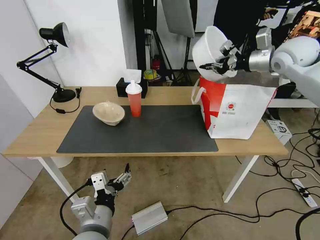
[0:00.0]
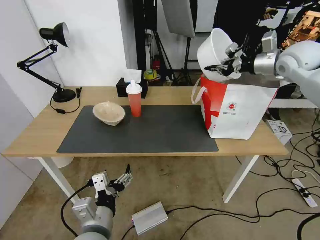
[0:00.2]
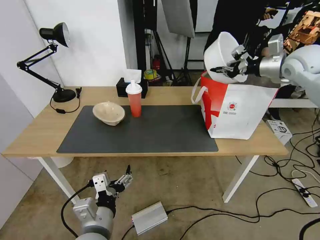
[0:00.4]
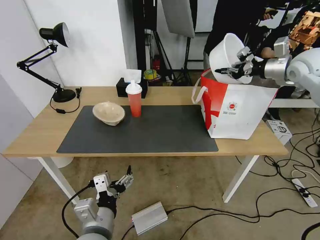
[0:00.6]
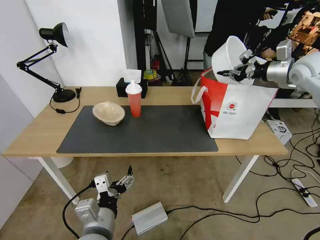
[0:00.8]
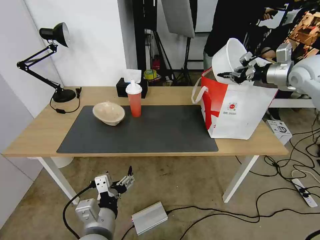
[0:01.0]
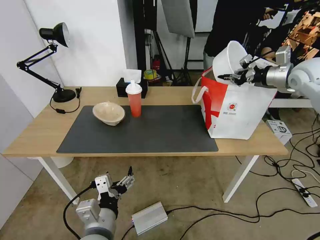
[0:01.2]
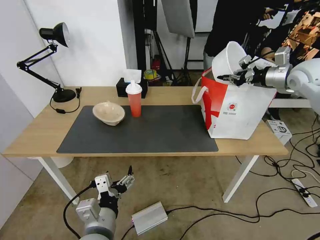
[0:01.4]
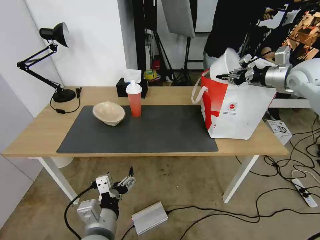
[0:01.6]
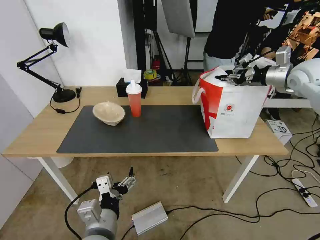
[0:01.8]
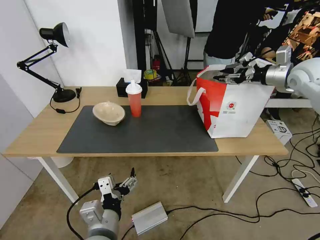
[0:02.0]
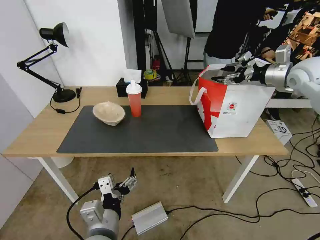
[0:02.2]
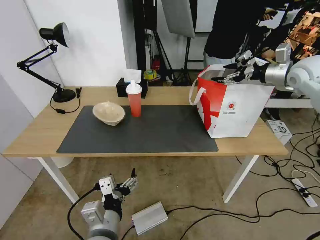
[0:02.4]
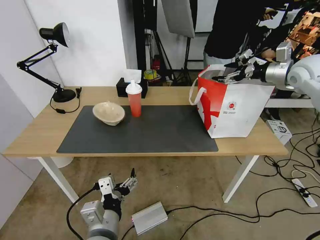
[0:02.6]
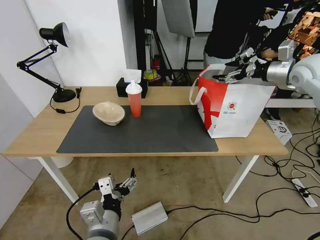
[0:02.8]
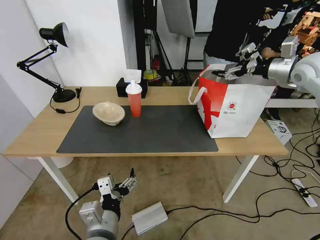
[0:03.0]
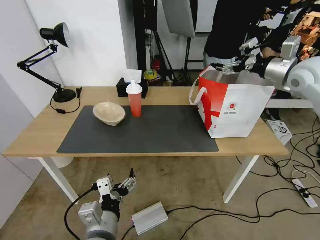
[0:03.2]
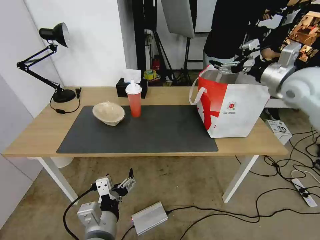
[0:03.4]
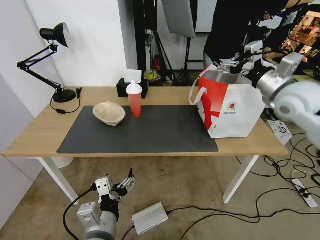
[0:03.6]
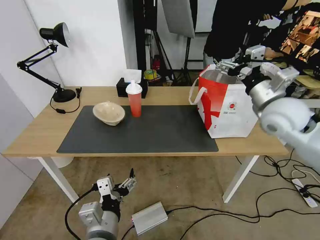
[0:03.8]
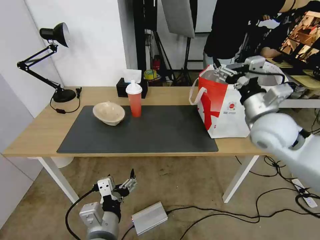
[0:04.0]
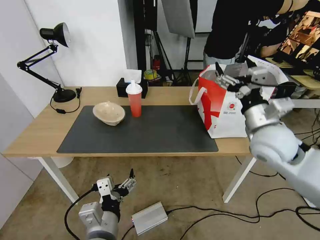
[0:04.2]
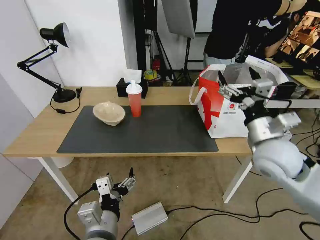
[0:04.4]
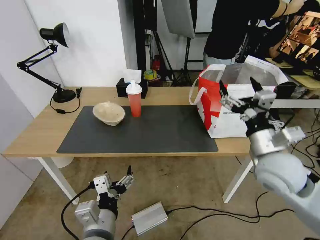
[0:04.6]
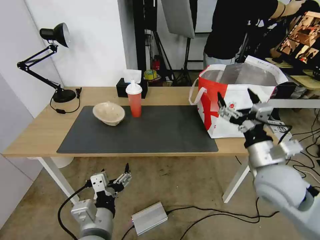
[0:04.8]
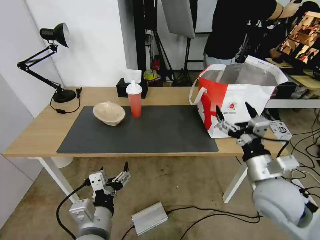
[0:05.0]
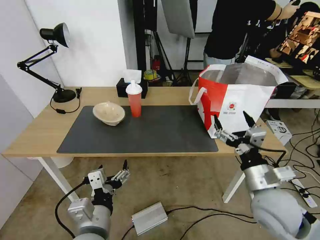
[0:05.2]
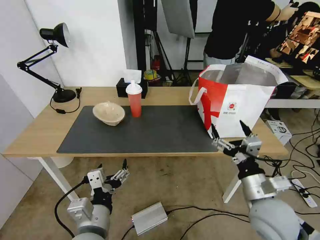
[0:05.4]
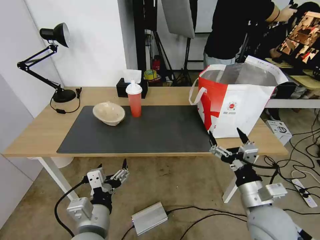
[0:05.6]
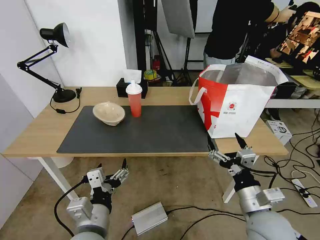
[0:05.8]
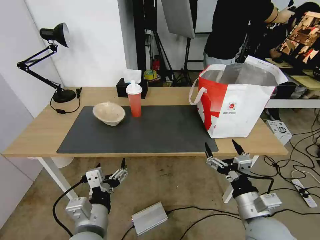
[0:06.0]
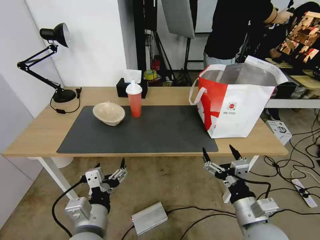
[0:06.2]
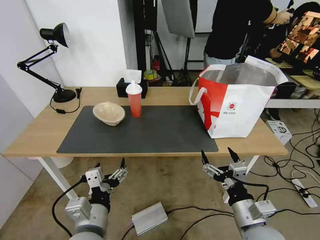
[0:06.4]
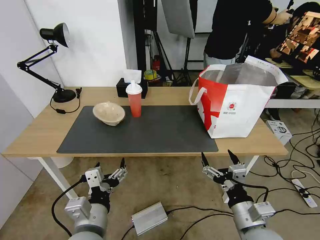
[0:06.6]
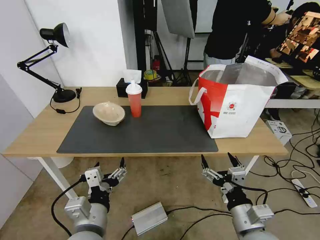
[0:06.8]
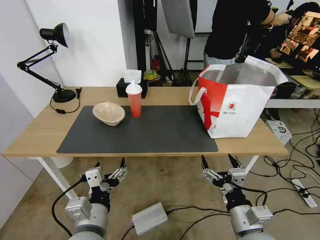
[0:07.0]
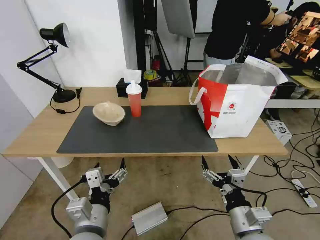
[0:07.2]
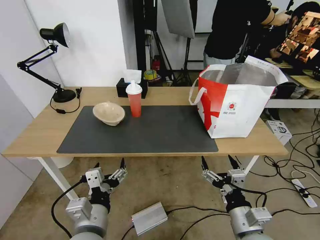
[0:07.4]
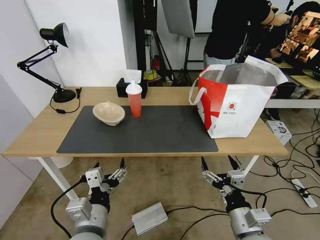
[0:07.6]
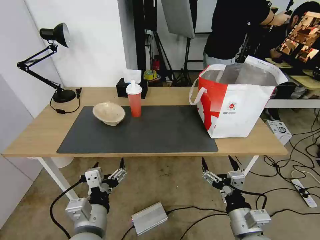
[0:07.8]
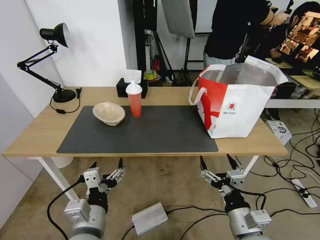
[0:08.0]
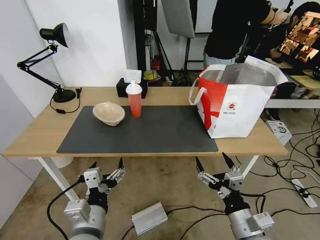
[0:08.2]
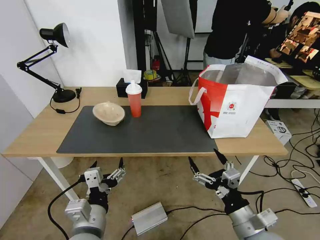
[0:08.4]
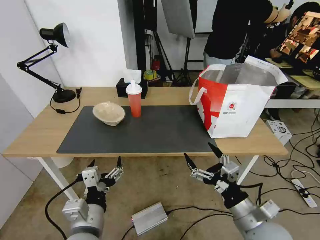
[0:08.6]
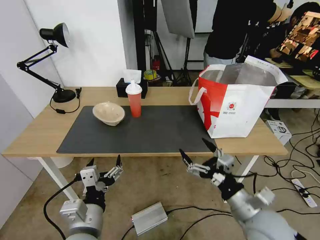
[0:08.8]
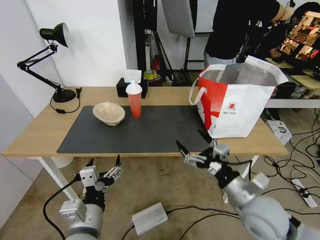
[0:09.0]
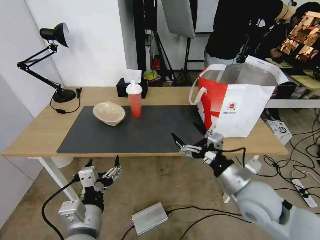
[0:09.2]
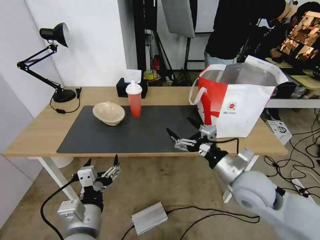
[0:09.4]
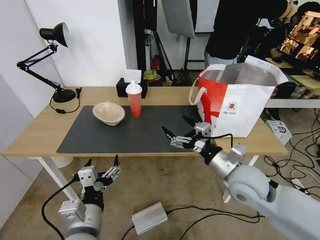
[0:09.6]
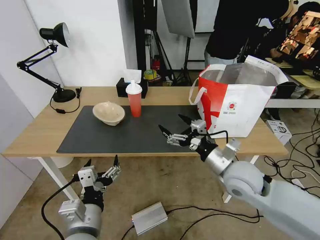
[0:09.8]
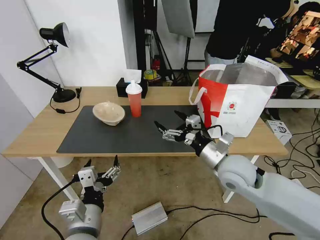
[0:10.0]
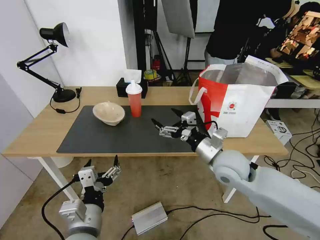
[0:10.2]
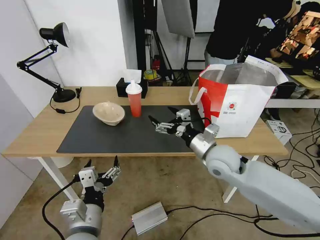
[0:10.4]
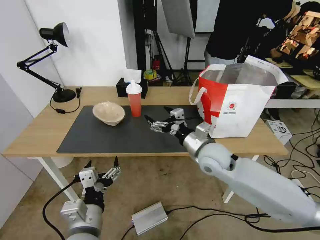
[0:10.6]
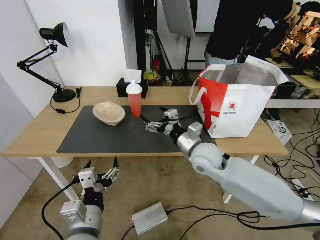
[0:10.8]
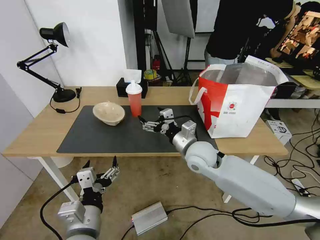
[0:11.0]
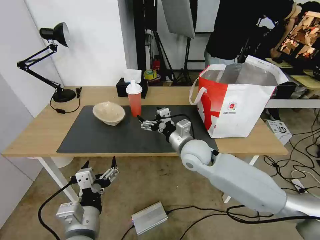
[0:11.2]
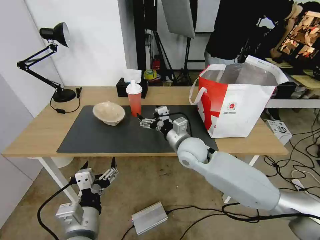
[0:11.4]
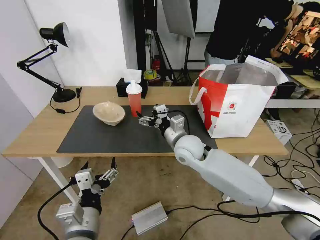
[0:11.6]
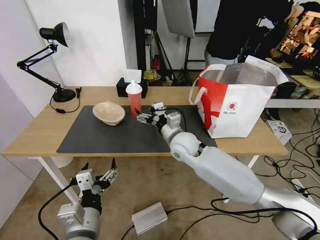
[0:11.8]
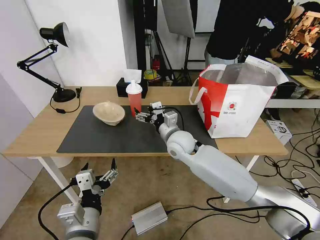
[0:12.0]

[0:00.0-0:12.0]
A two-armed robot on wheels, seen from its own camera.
Task of the whole recording: Pick up the trash from the table and place it into the takeout bag.
0:00.0 to 0:01.6: The right gripper travels to the right by some 5 cm.
0:01.6 to 0:03.0: The right gripper opens.
0:03.0 to 0:04.4: The right gripper shifts about 30 cm backward, to the left and downward.
0:04.4 to 0:06.0: The right gripper travels backward and downward by some 20 cm.
0:06.0 to 0:07.6: The grippers stay close to where they were, moving slightly.
0:07.6 to 0:09.0: The right gripper goes about 10 cm forward and upward.
0:09.0 to 0:10.4: The right gripper moves forward and to the left, about 15 cm.
0:10.4 to 0:12.0: The right gripper heads to the left and forward, covering about 15 cm.

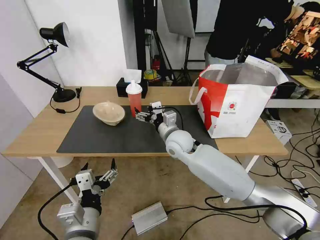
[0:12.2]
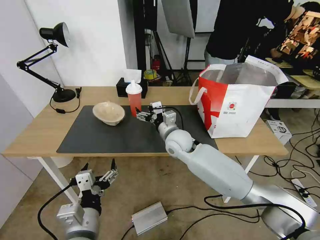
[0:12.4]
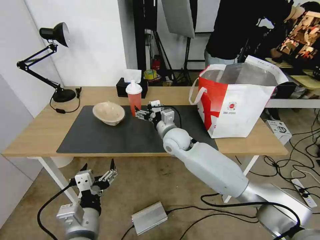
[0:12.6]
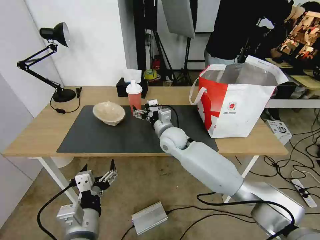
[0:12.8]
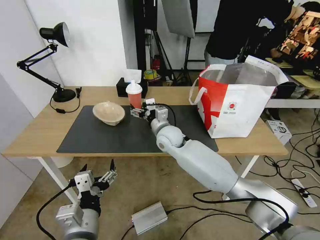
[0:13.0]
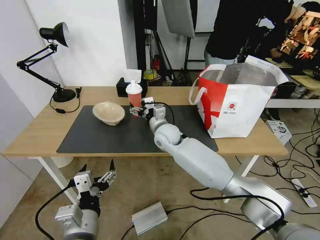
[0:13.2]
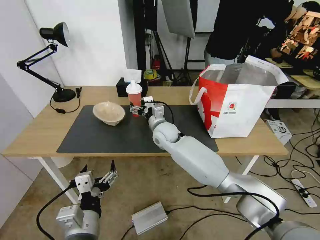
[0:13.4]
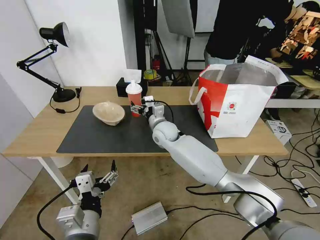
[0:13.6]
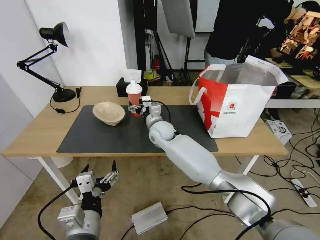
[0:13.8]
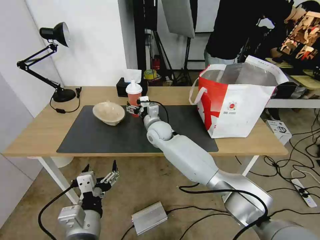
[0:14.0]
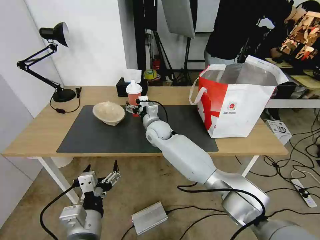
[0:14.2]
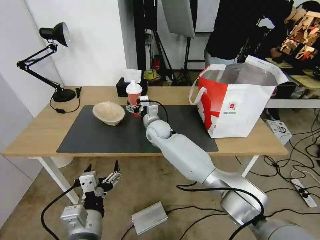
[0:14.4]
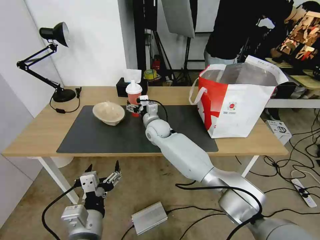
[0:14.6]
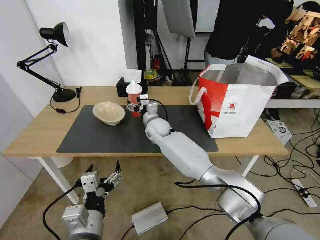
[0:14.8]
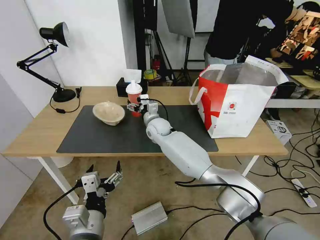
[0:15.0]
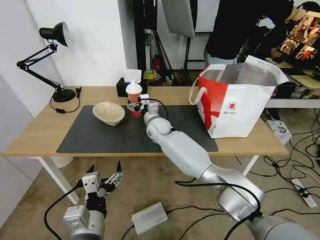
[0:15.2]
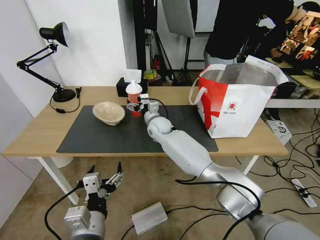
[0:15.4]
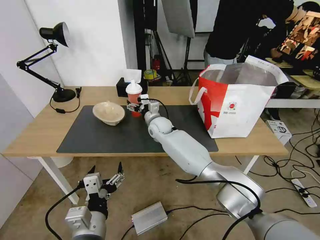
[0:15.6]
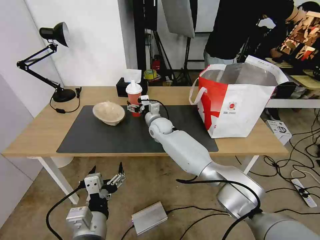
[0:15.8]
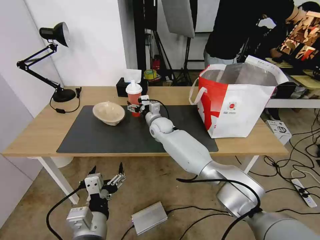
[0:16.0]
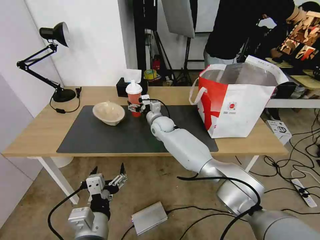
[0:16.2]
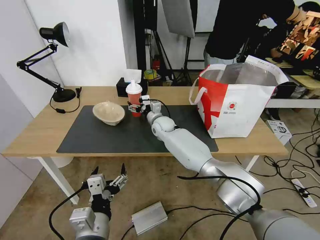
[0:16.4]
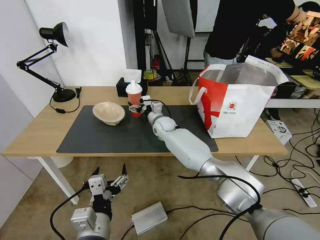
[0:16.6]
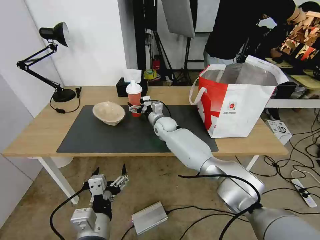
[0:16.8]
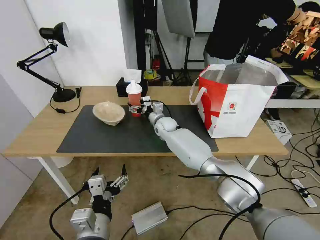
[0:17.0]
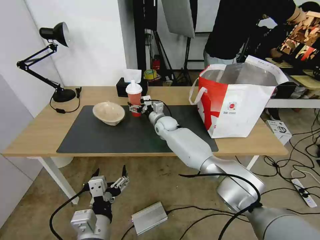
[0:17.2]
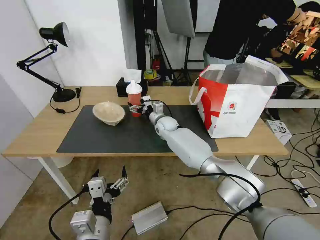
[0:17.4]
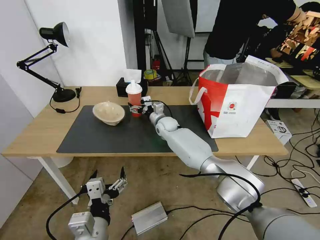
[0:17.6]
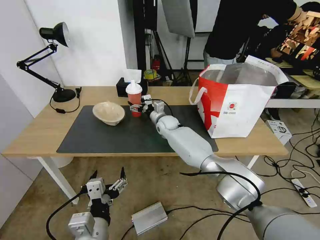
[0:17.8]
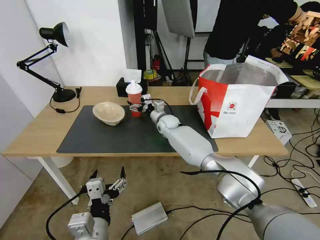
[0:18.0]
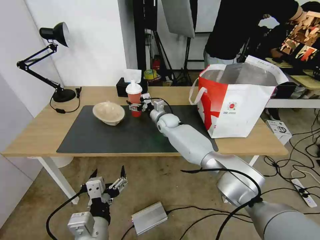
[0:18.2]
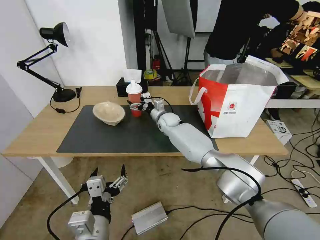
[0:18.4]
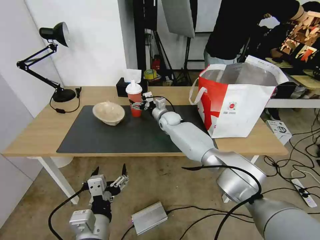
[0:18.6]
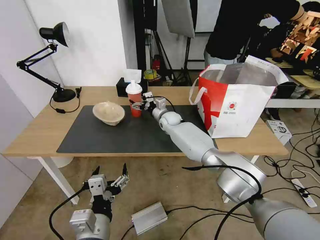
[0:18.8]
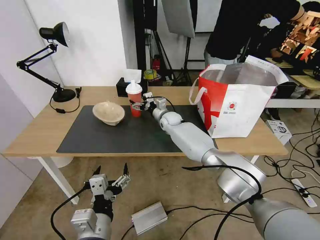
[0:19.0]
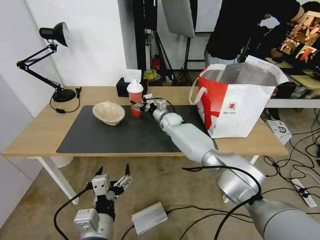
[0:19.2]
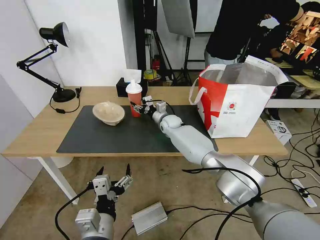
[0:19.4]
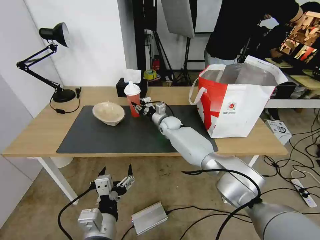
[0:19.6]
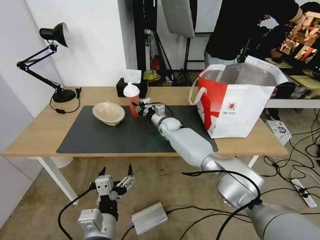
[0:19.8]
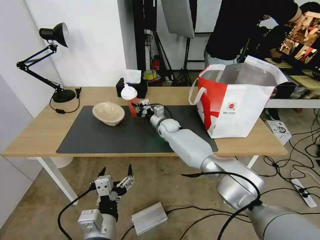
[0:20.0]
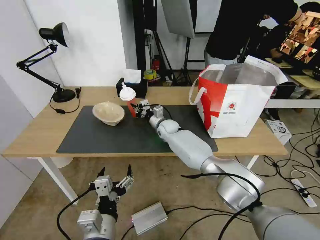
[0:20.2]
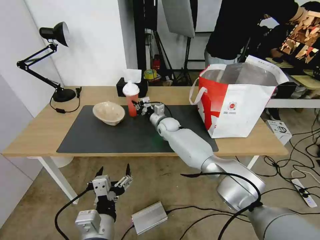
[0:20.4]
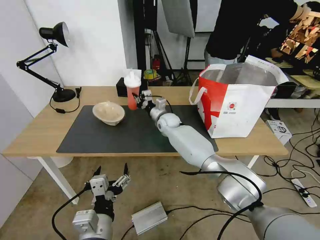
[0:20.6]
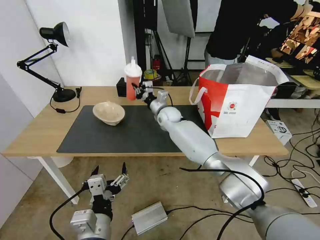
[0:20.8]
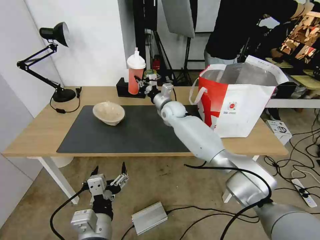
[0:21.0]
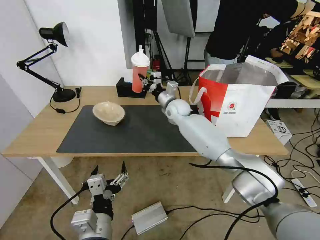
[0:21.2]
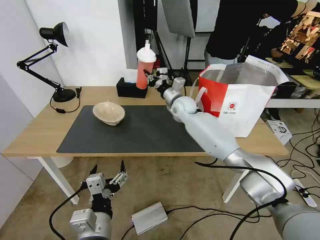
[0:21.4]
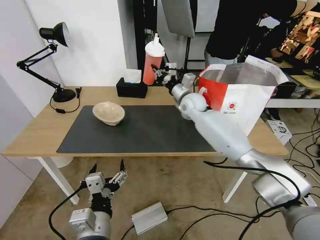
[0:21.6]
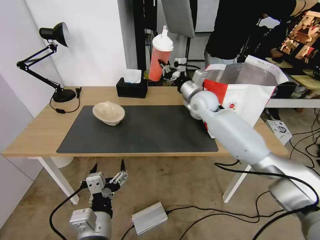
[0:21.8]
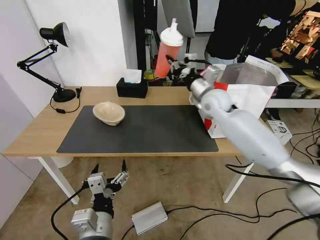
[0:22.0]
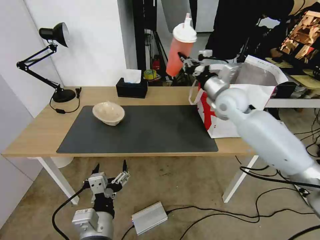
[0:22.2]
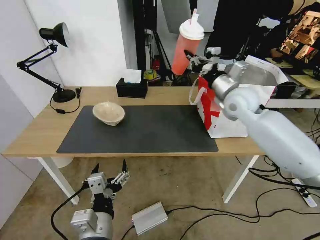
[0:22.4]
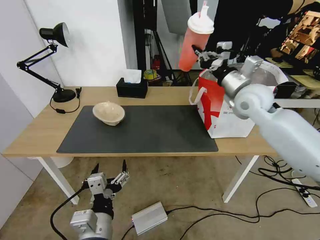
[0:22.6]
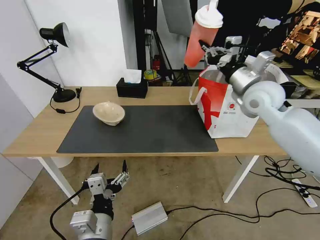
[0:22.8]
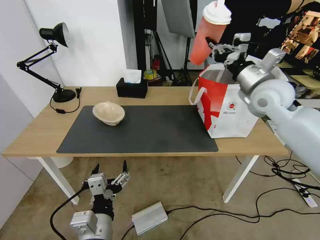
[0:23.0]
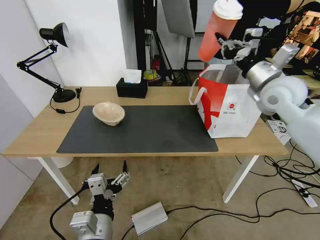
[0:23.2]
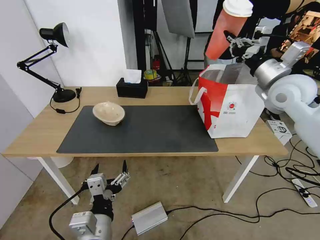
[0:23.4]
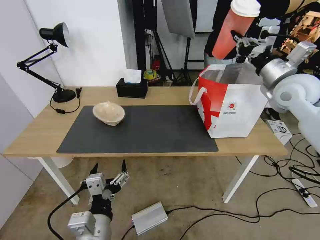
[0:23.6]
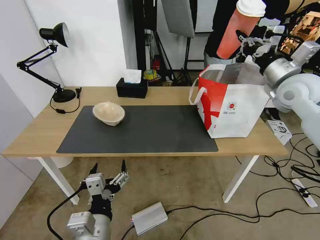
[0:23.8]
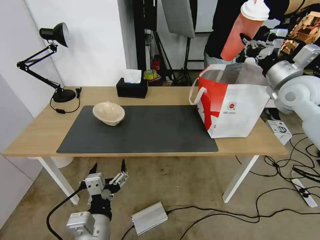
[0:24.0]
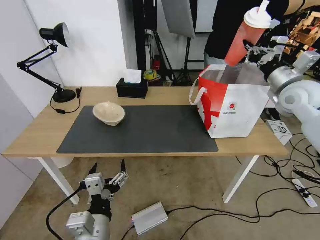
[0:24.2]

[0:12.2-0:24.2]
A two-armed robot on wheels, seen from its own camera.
Task of the whole recording: Pick up the trash from the table and place it into the takeout bag.
0:12.2 to 0:13.8: The right gripper goes approximately 10 cm forward and to the left.
0:13.8 to 0:15.2: The grippers move only a little.
0:15.2 to 0:16.6: The grippers make only small movements.
0:16.6 to 0:18.2: The grippers make only small movements.
0:18.2 to 0:19.8: The right gripper closes up.
0:19.8 to 0:21.2: The right gripper is displaced upward by about 10 cm.
0:21.2 to 0:22.6: The right gripper heads to the right, upward and backward, covering about 25 cm.
0:22.6 to 0:24.2: The right gripper travels to the right by some 15 cm.
